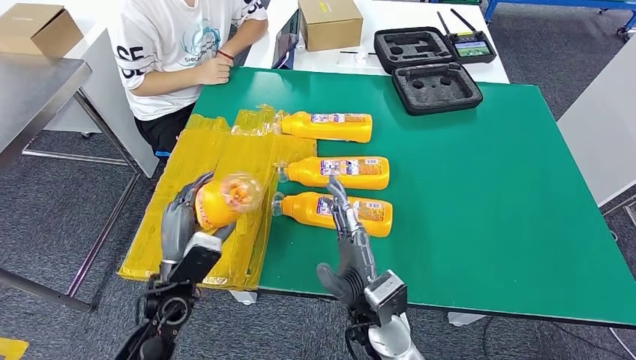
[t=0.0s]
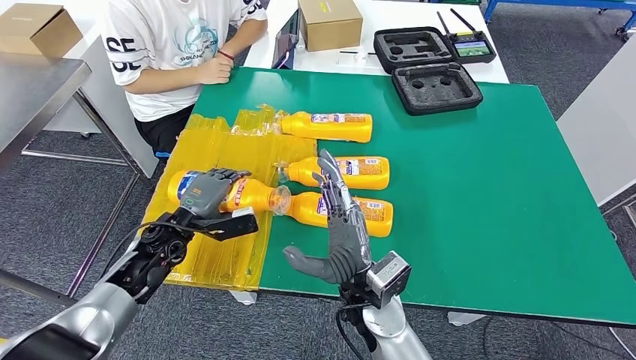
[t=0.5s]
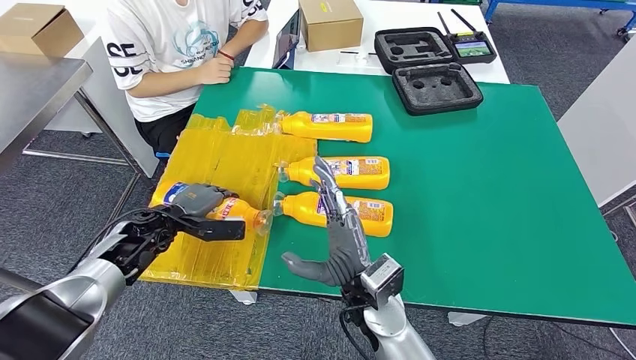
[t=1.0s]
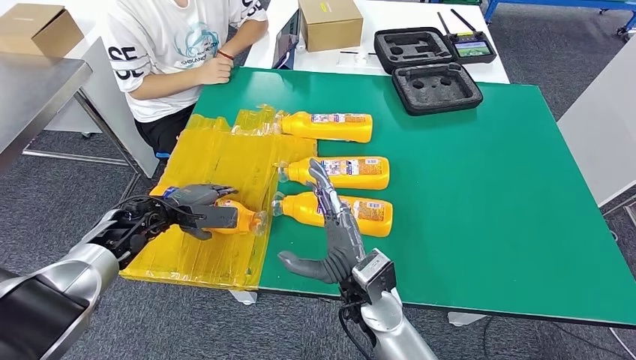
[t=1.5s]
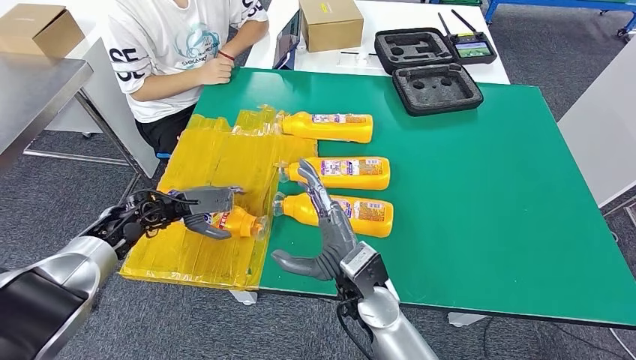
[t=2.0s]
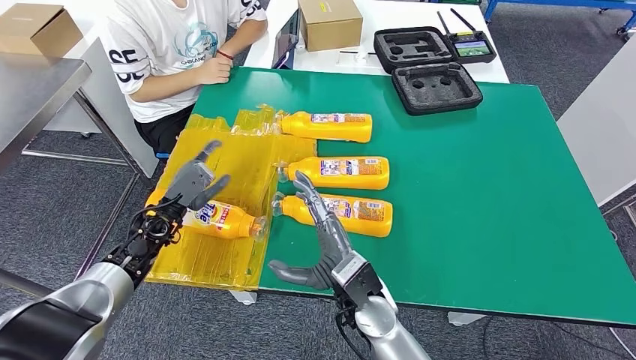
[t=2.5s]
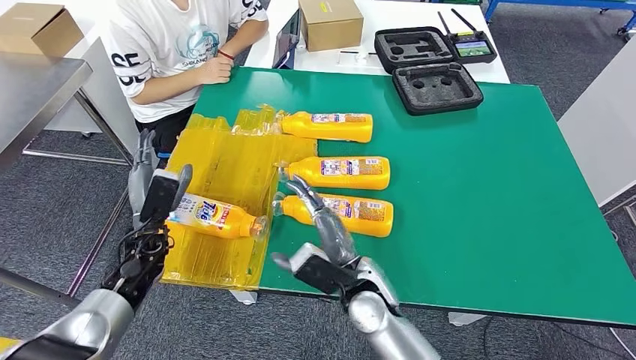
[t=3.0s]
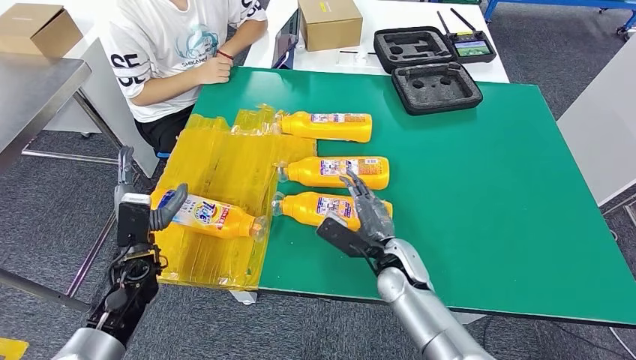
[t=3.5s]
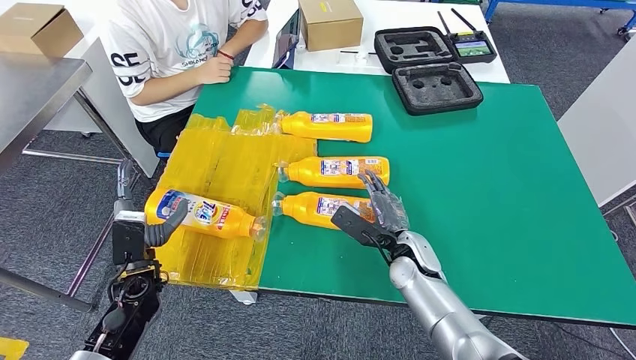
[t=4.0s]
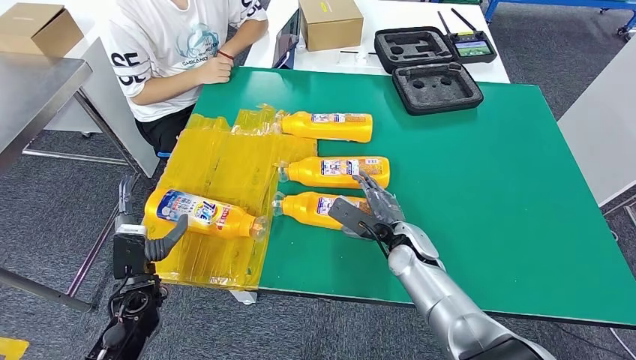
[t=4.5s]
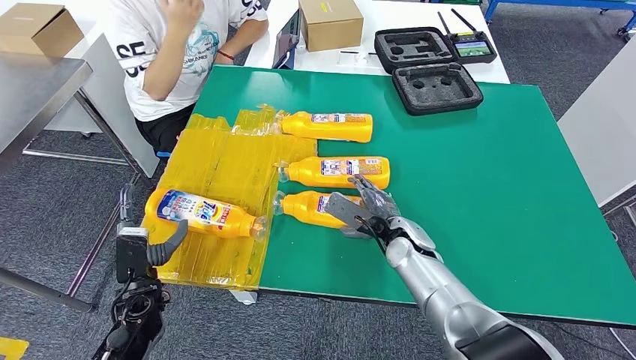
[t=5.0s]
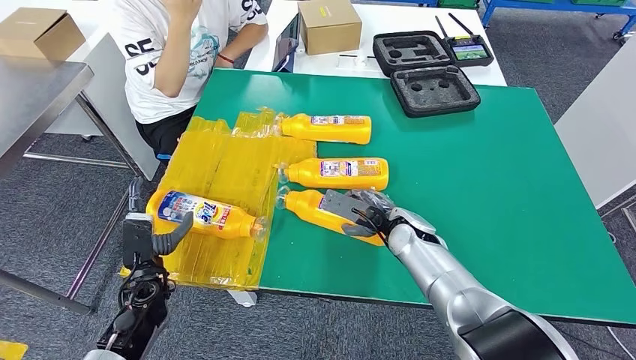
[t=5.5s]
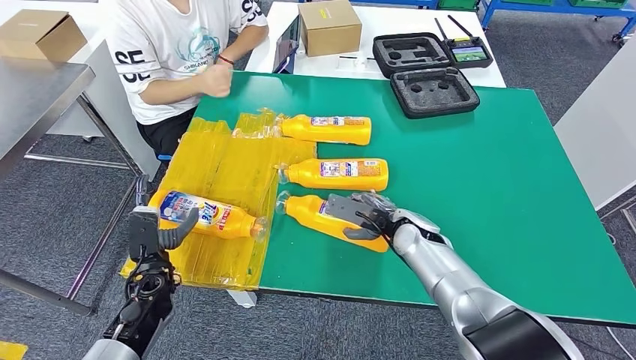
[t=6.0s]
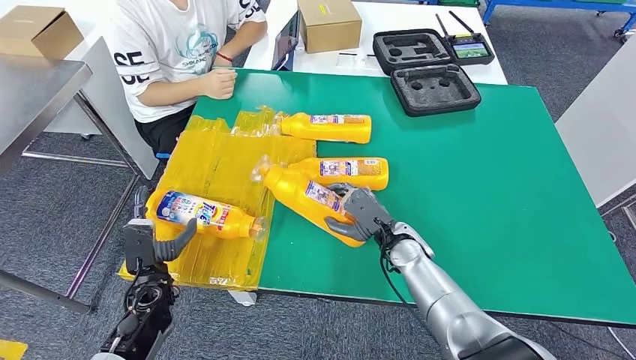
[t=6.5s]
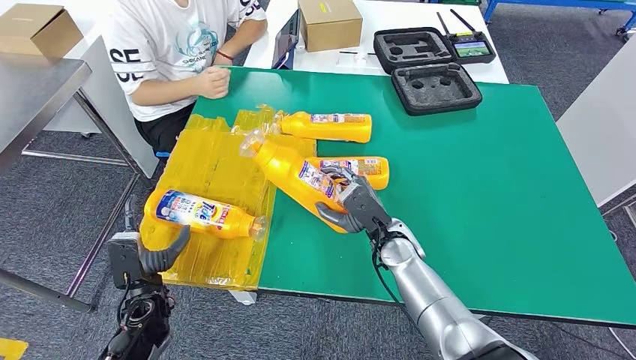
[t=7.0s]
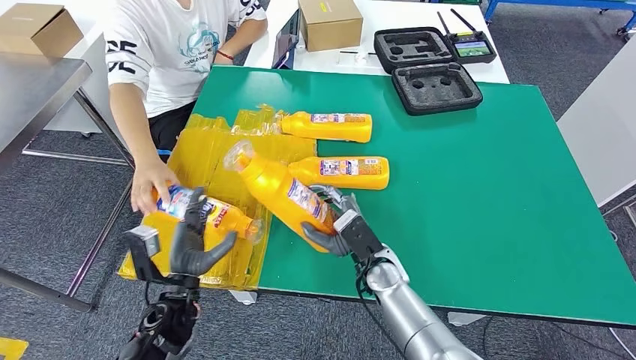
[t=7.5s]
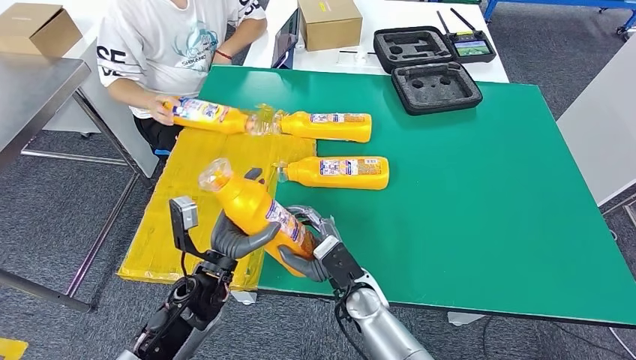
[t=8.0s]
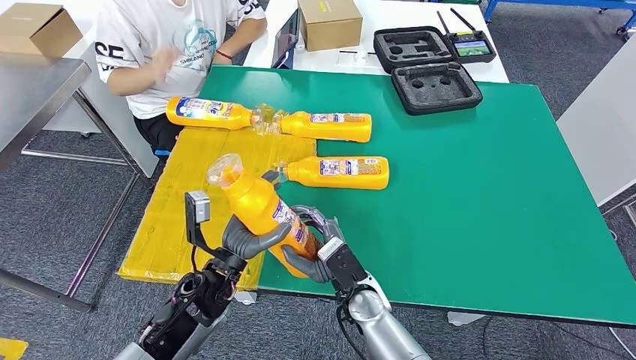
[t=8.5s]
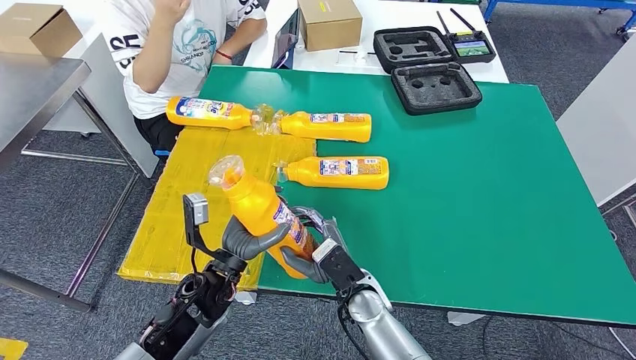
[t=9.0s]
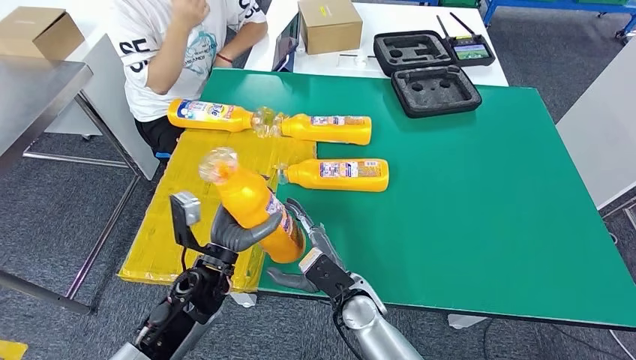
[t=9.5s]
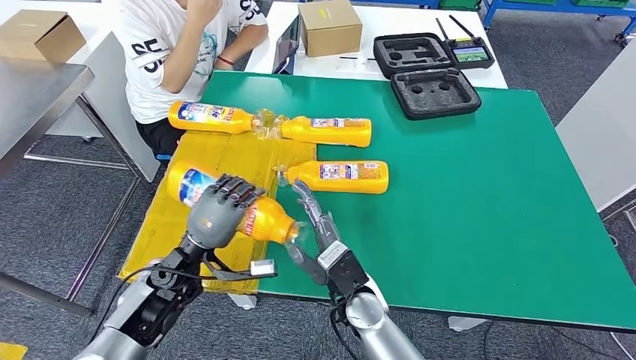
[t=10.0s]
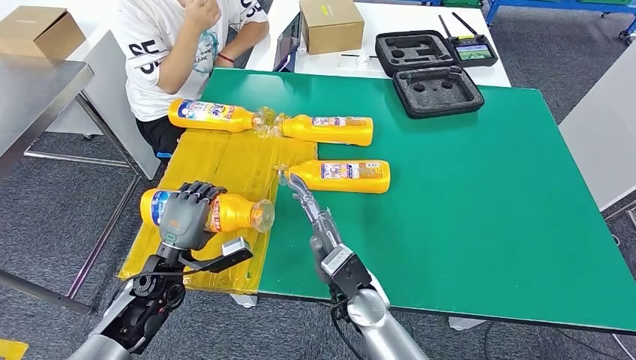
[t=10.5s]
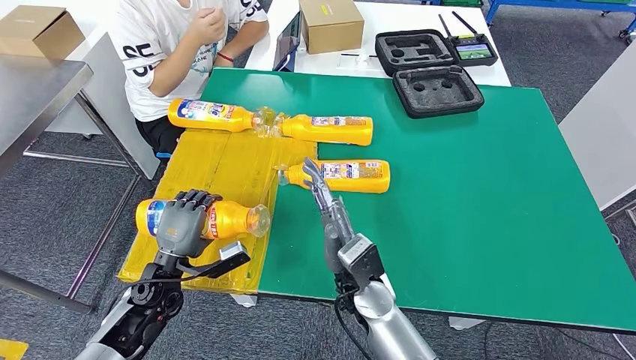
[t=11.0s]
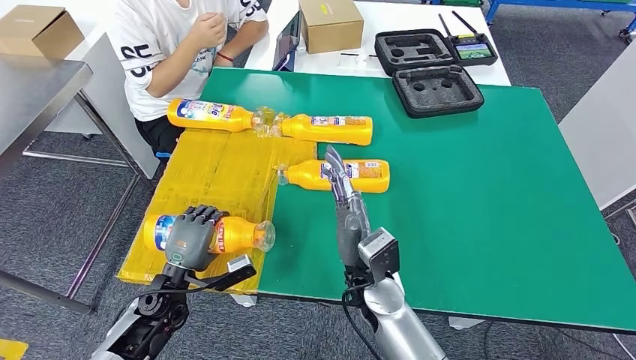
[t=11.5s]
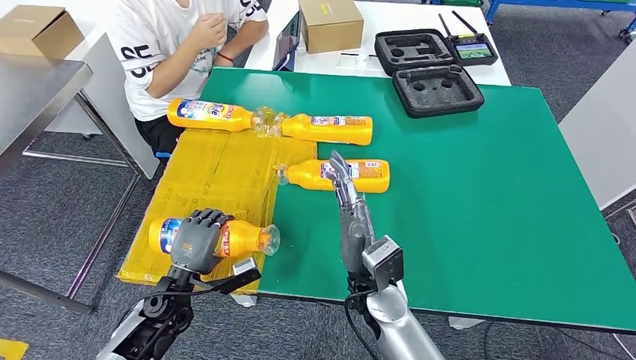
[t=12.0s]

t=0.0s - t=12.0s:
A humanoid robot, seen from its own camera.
Step, t=0.0s - t=2.5s: Flip the fast-moving consumer goods bottle to the front side.
Step, t=3.0s - t=8.0s: Pick up the fast-moving consumer goods bottle from the table.
Step, t=8.5s - t=11.5s: Flip the fast-moving consumer goods bottle to the front side.
t=0.0s - t=2.0s: The left hand heads forward and to the left, covering roughly 20 cm.
t=2.0s - t=4.0s: The left hand moves backward, about 10 cm. Meanwhile the right hand goes approximately 15 cm to the right, forward and downward.

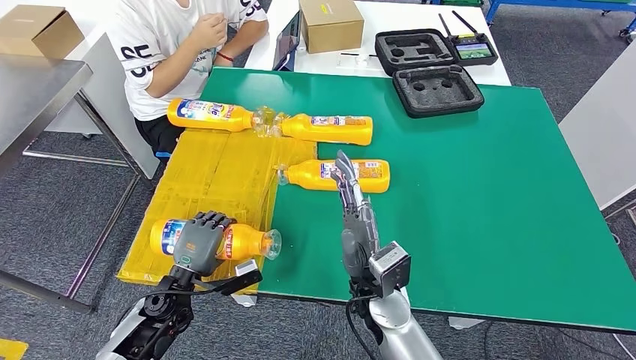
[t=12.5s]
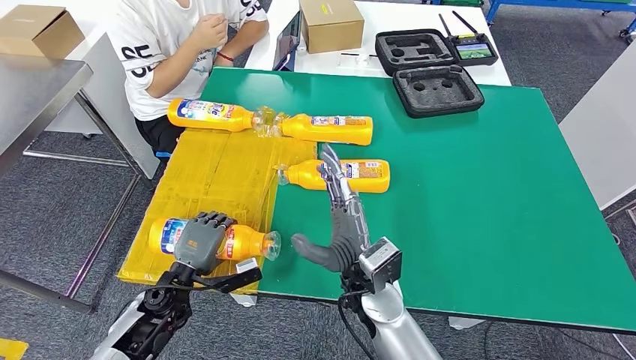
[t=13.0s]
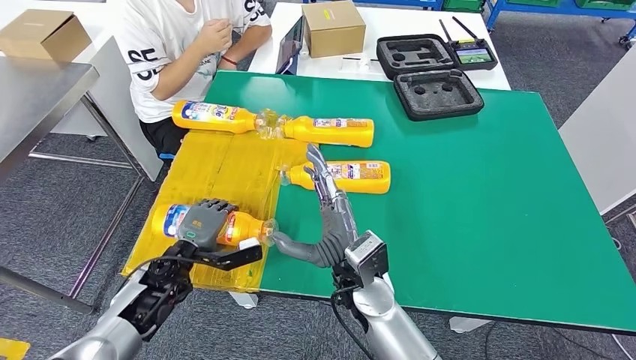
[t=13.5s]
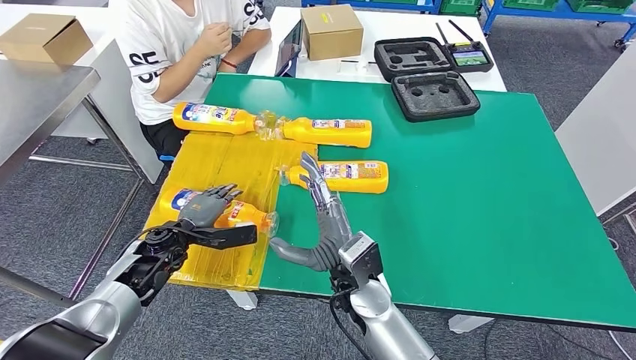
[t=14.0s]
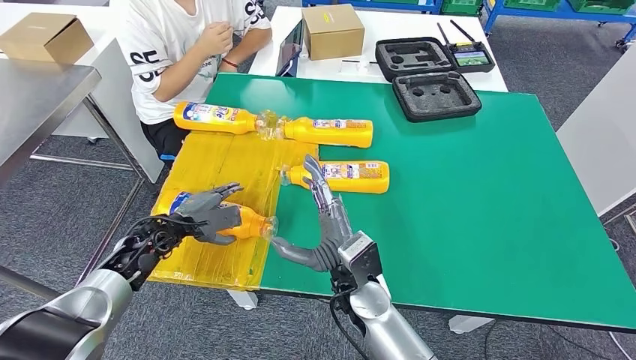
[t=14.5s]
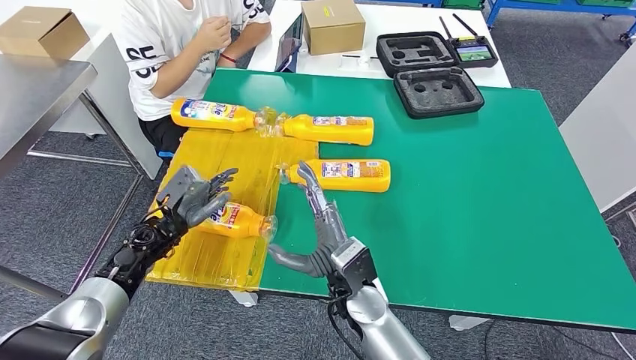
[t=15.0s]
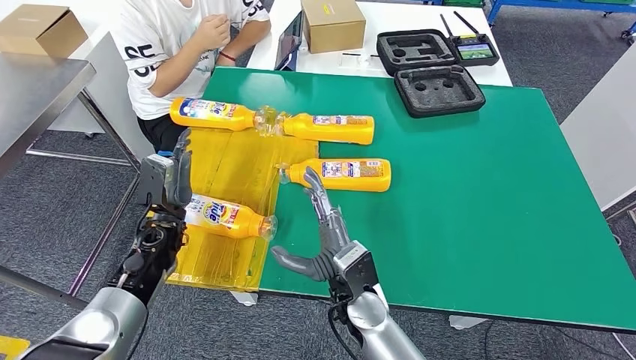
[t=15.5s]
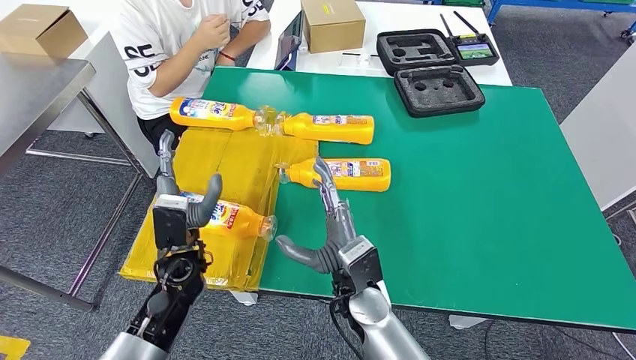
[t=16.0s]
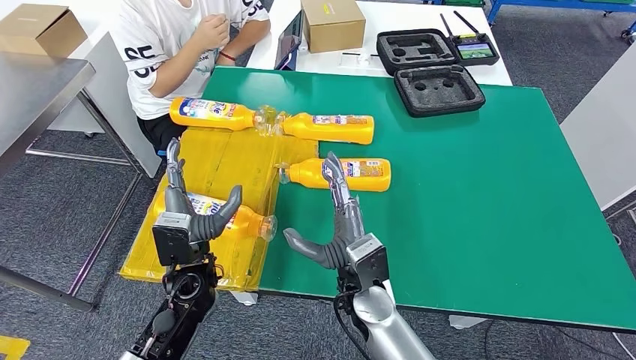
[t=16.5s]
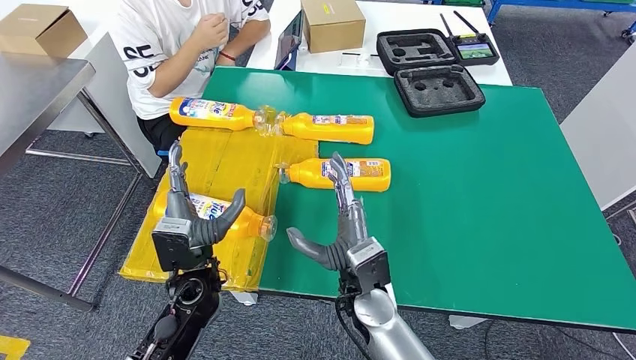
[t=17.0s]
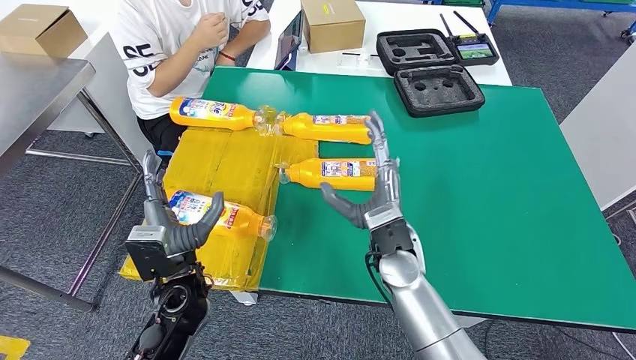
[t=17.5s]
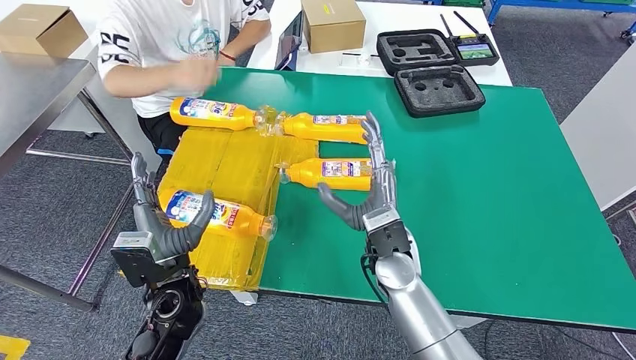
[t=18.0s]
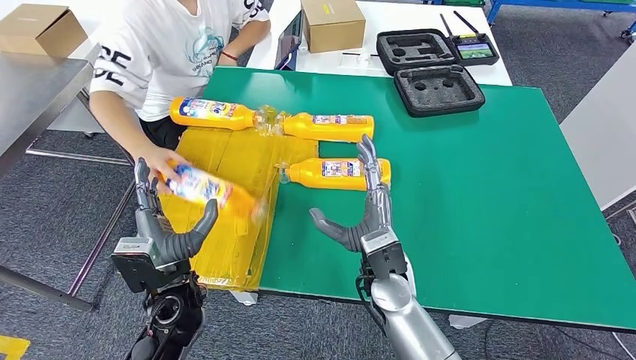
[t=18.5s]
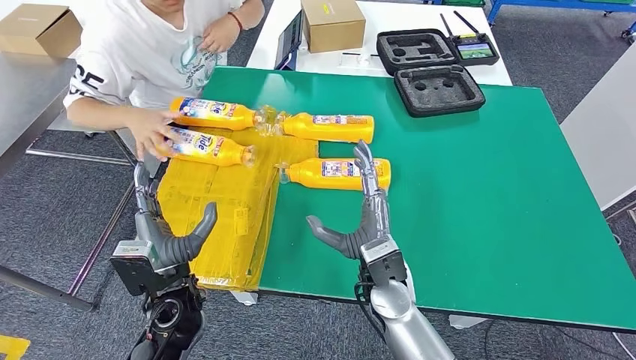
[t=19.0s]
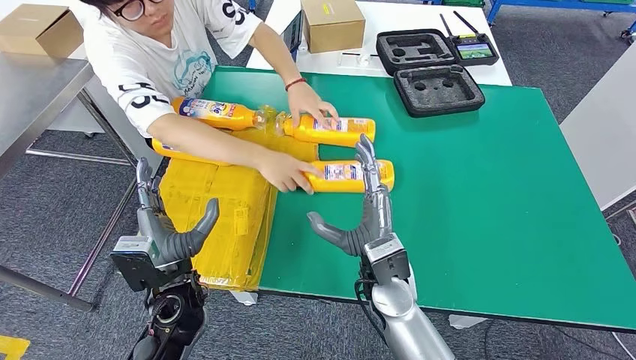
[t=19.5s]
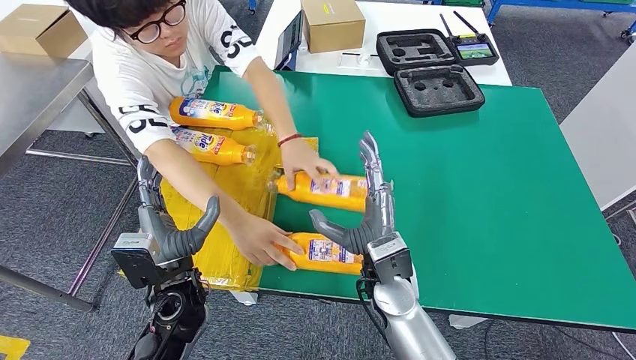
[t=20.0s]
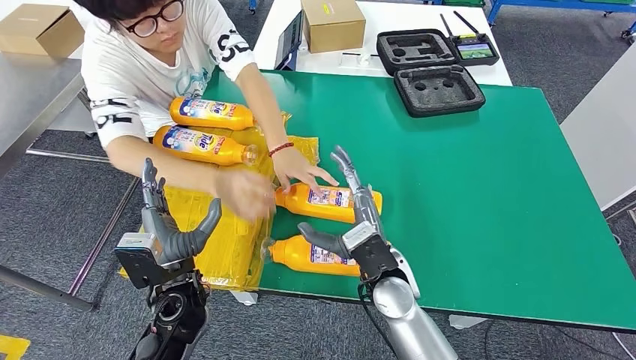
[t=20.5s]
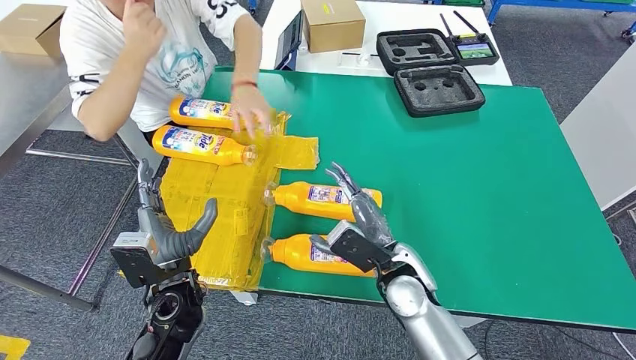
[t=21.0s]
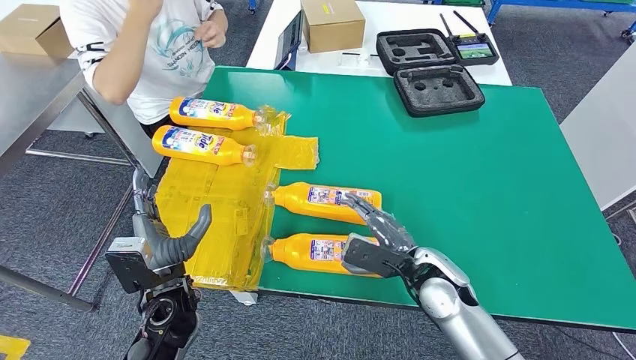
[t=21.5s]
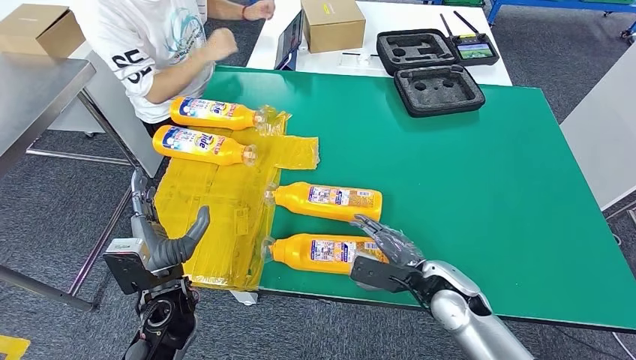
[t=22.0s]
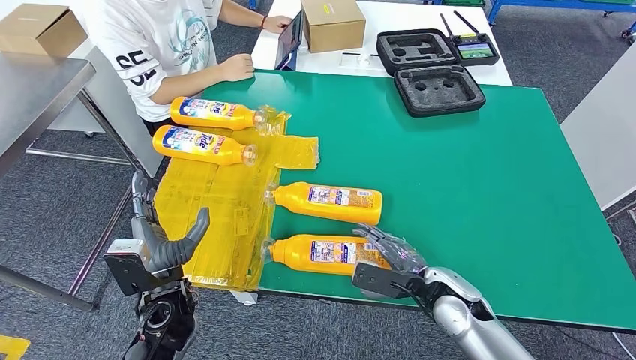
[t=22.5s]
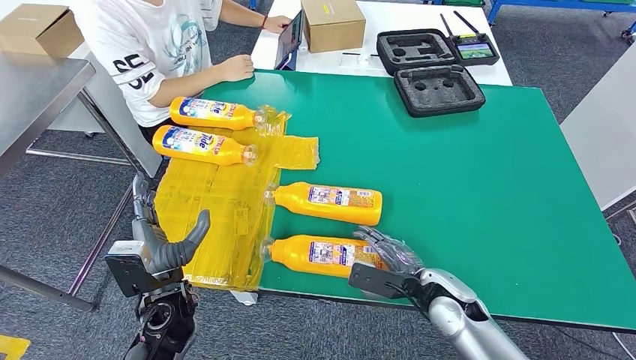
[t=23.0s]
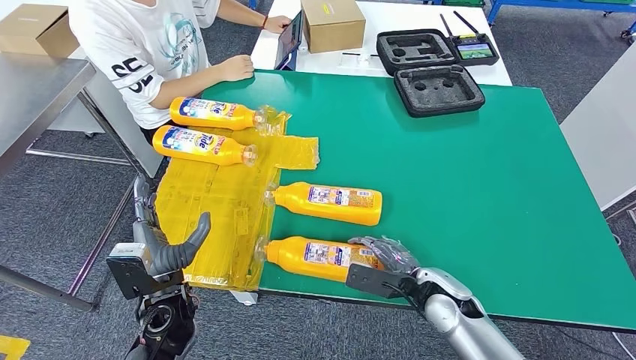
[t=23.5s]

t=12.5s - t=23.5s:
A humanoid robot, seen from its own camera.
t=16.0s - t=18.0s: The left hand is displaced backward by approximately 5 cm. The right hand moves forward and to the right, roughly 5 cm.
t=21.5s - t=23.5s: The right hand shifts by roughly 5 cm.
